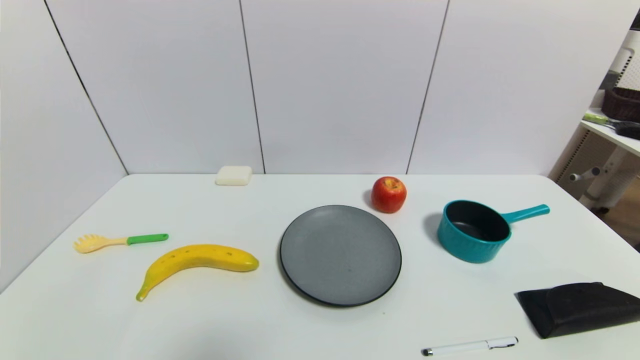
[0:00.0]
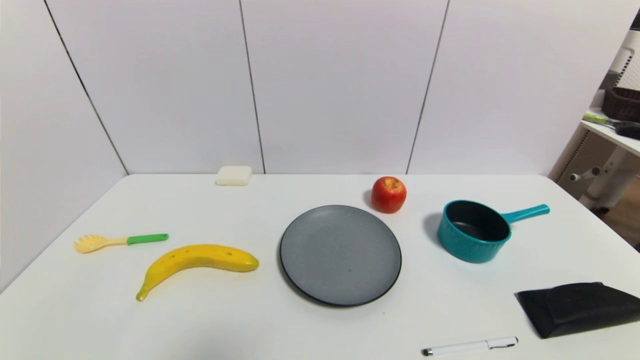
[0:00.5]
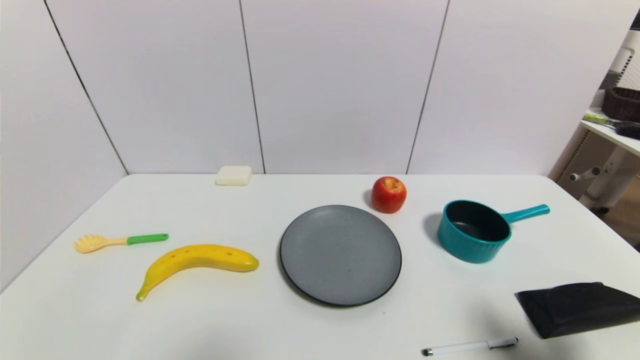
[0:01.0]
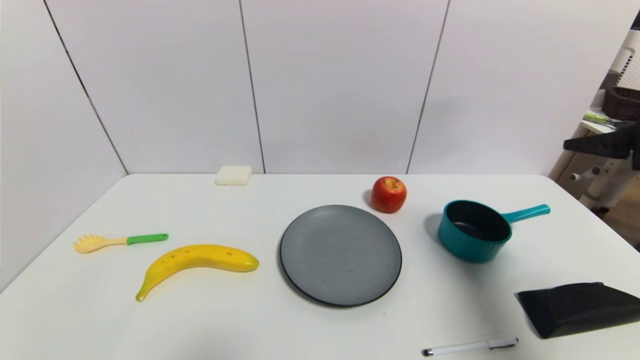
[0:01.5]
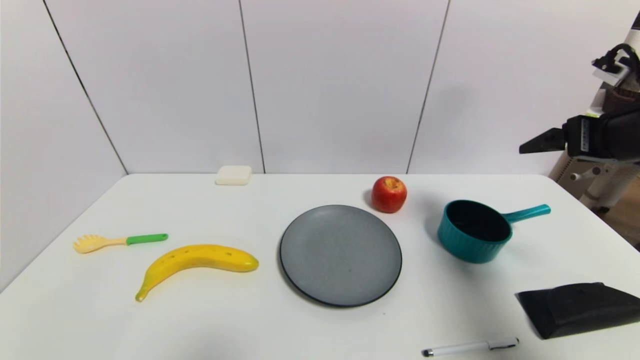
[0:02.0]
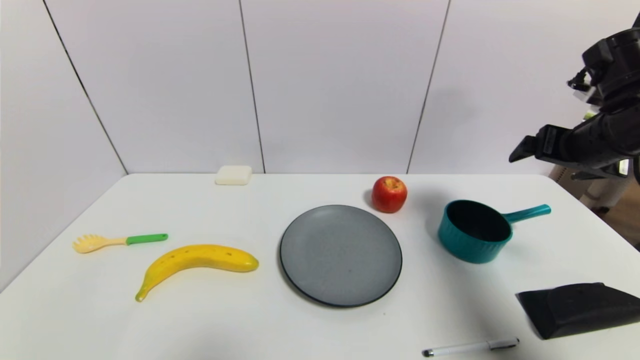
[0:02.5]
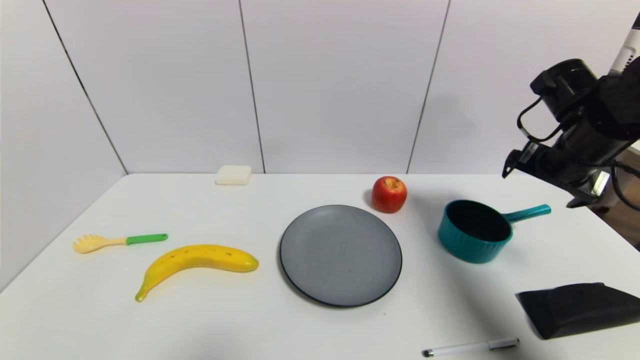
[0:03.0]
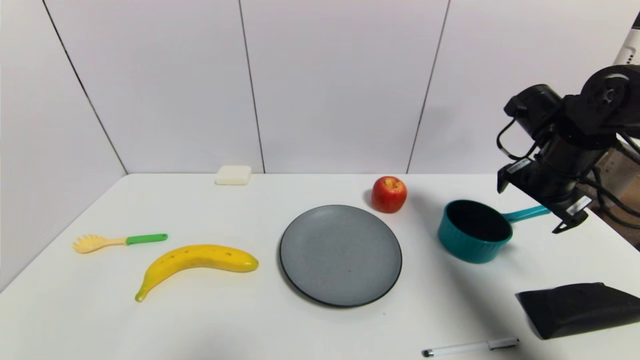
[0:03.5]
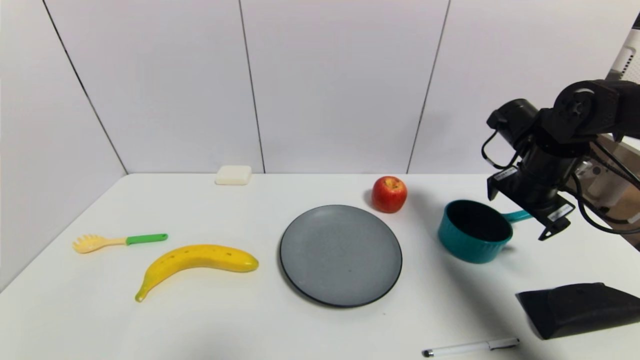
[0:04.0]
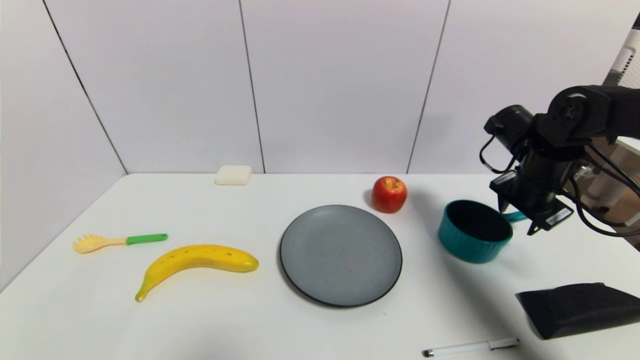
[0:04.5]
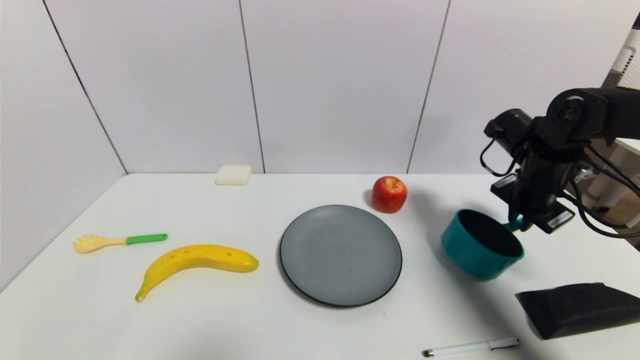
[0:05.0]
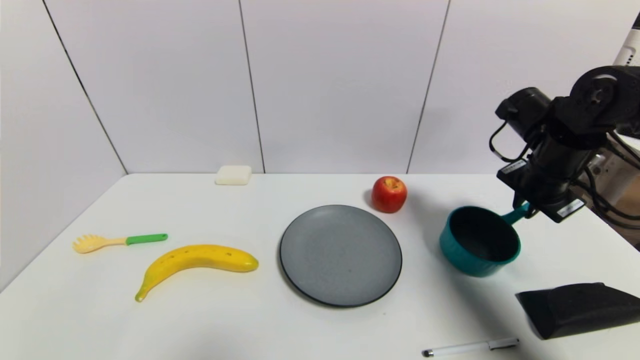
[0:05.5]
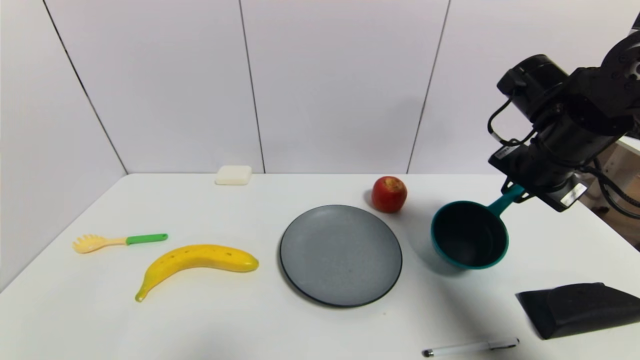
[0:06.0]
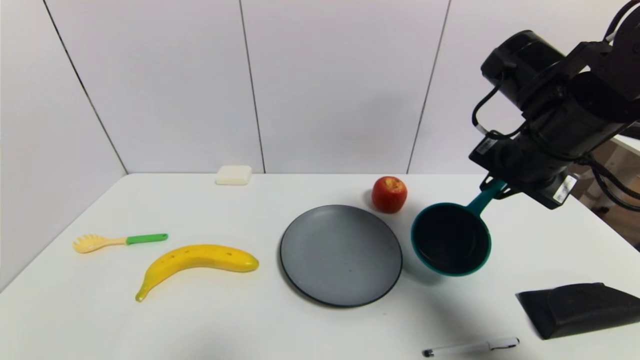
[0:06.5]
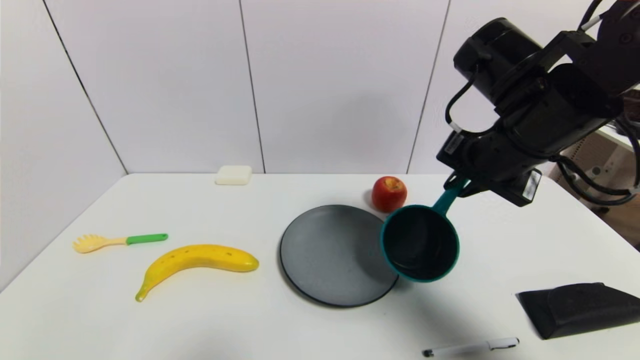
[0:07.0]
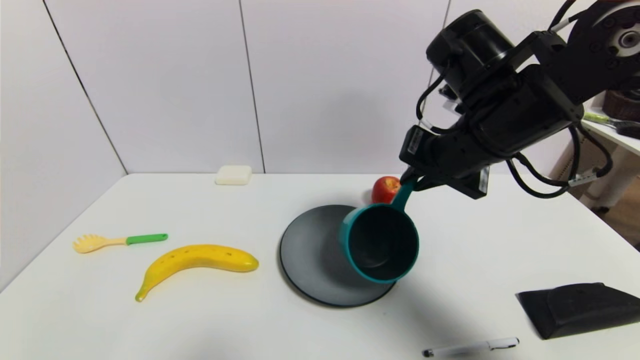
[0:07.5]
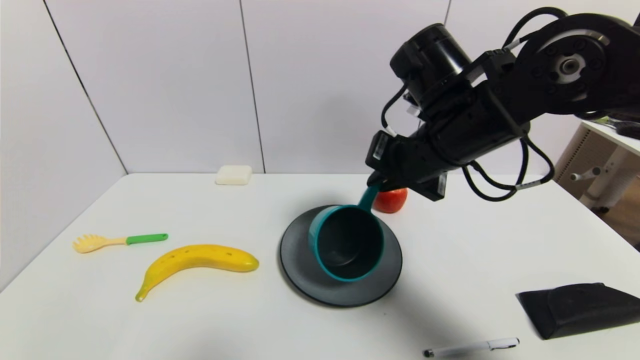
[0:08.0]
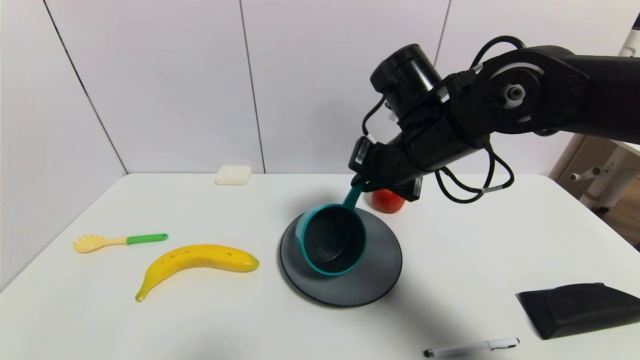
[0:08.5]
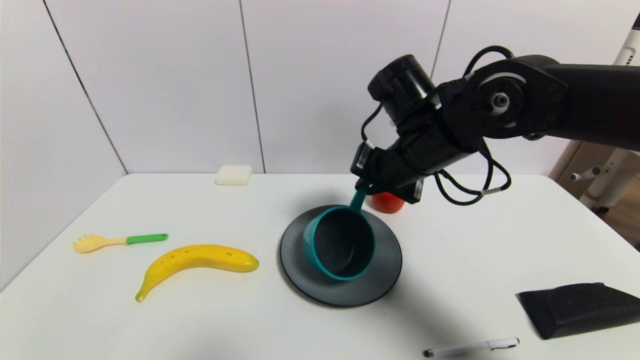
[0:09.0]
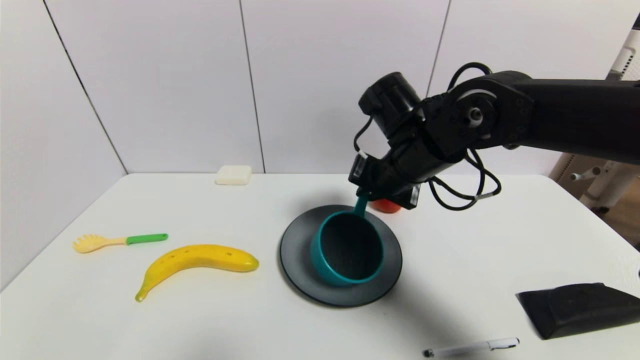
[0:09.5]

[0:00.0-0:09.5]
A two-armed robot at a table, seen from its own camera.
Task of the whole recording: use a gripper to pick the target object and place on the gray plate.
Step, 0:00.0 to 0:05.0: Grasp the blue pot with the right gripper.
0:00.0 to 0:02.0: The right gripper is displaced forward and upward by about 35 cm.
0:02.0 to 0:04.0: The right gripper shifts approximately 15 cm downward and forward.
0:04.0 to 0:05.5: The right gripper closes up.
0:05.5 to 0:07.5: The right gripper shifts roughly 20 cm to the left, upward and backward.
0:07.5 to 0:09.5: The right gripper goes roughly 10 cm downward and to the left.

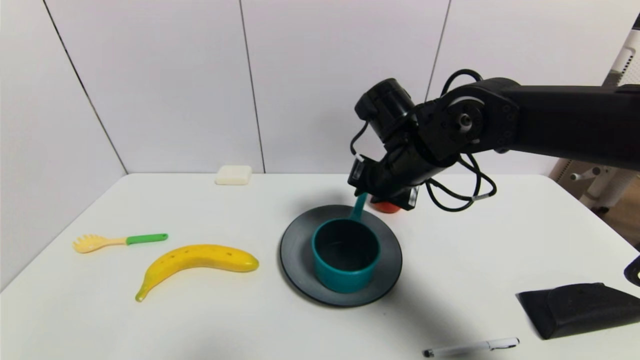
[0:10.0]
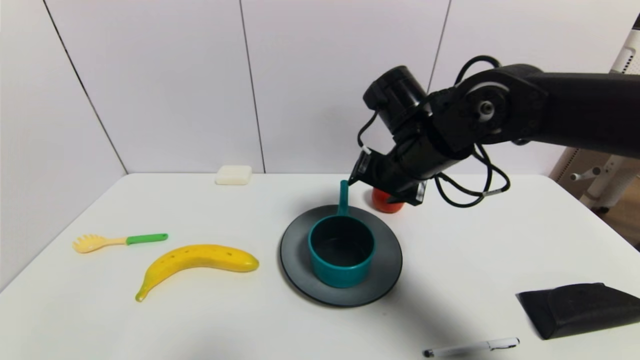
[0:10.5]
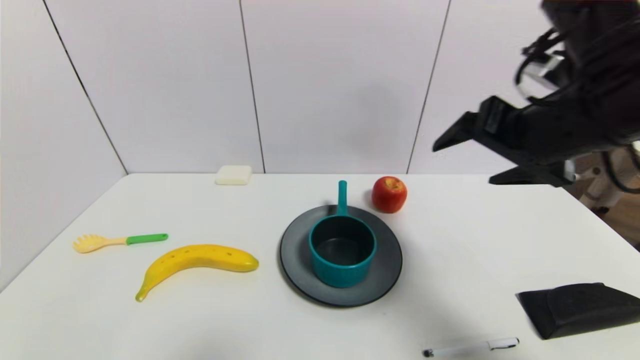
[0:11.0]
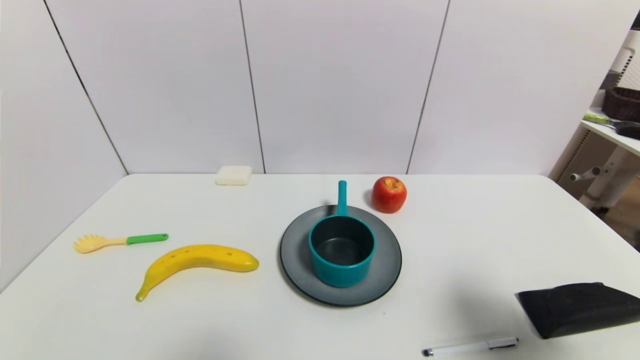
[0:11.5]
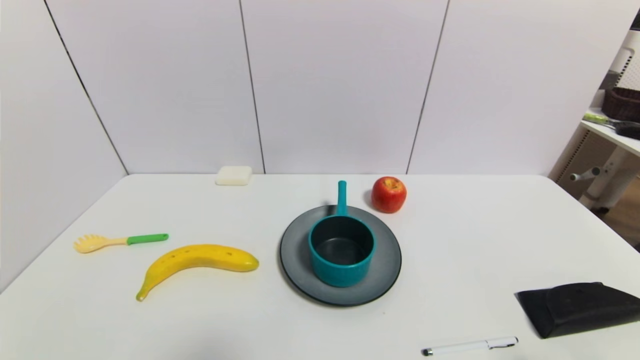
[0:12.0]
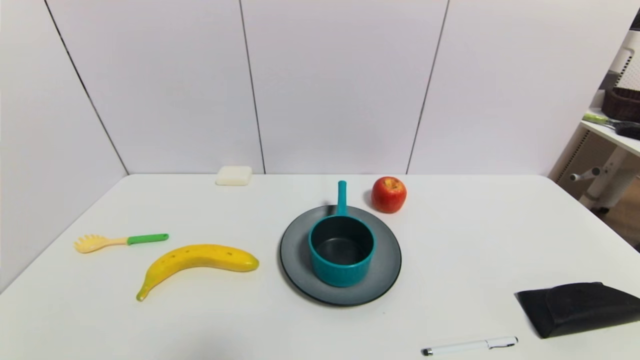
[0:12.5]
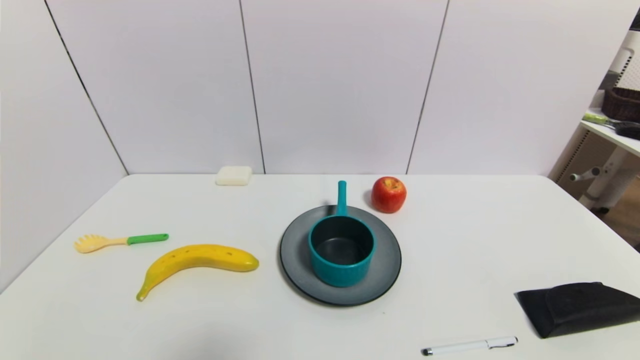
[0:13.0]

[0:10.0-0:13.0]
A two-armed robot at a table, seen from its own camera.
Task of the whole recording: use a gripper to pick the target object and place on the gray plate.
0:10.0 to 0:11.5: The right gripper travels backward and to the right by some 35 cm, and opens.
0:11.5 to 0:13.0: The right gripper heads downward and backward, covering about 20 cm.

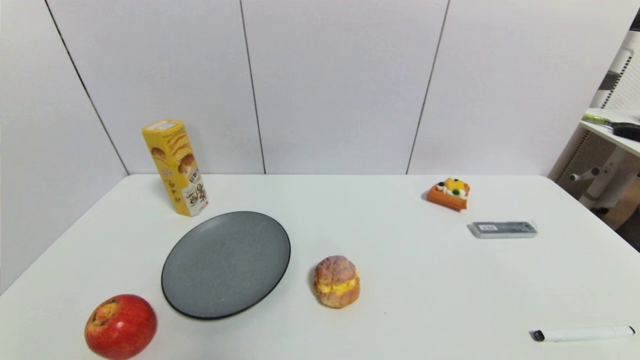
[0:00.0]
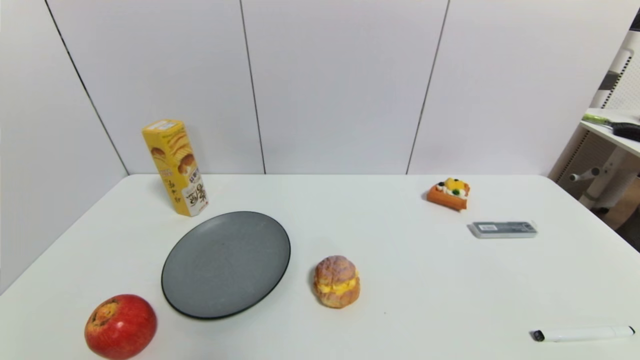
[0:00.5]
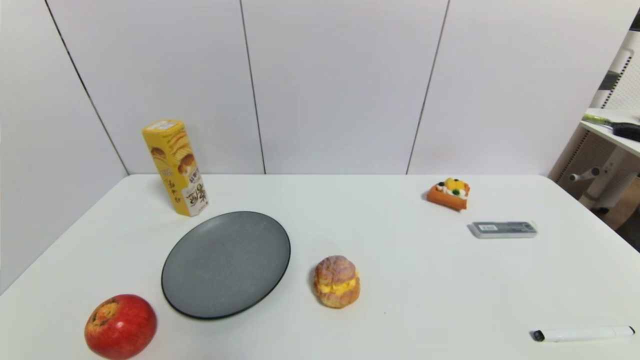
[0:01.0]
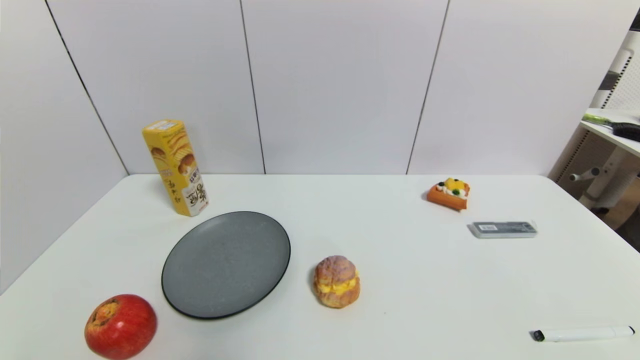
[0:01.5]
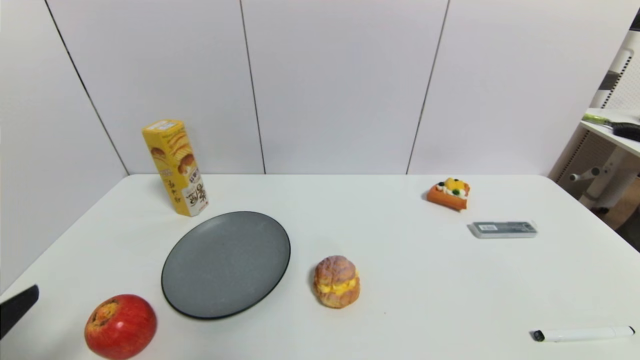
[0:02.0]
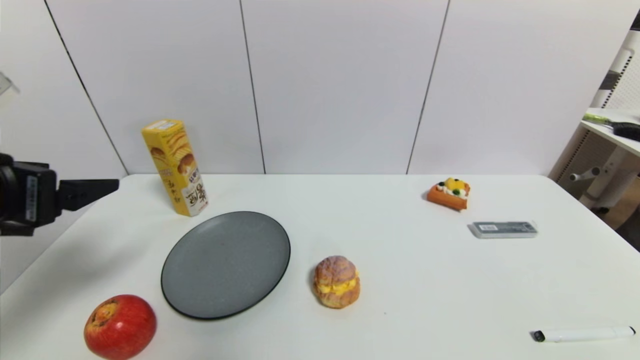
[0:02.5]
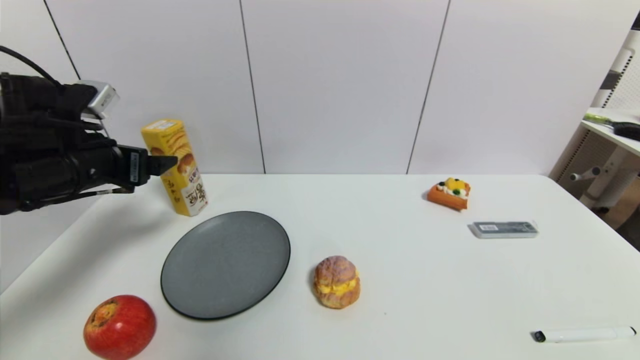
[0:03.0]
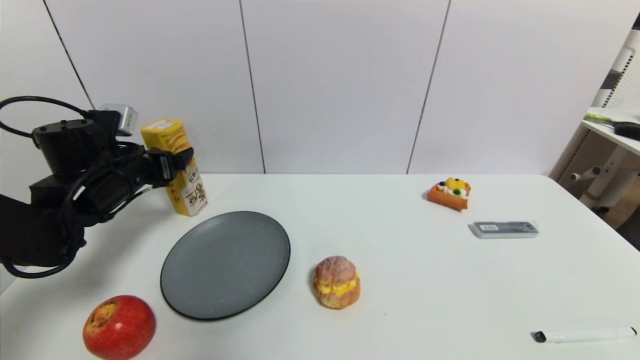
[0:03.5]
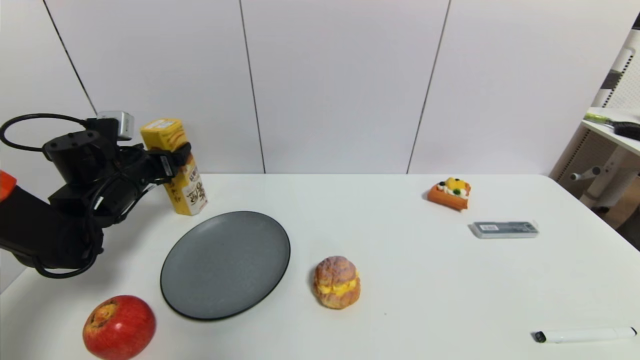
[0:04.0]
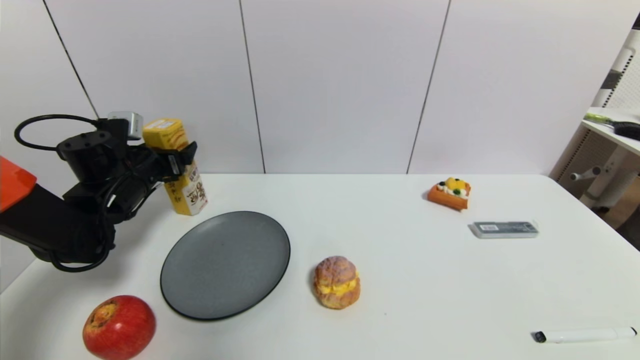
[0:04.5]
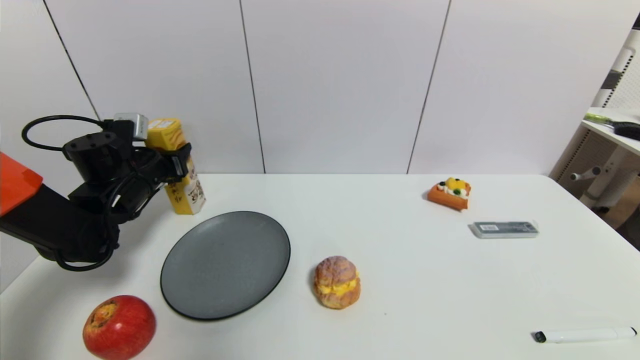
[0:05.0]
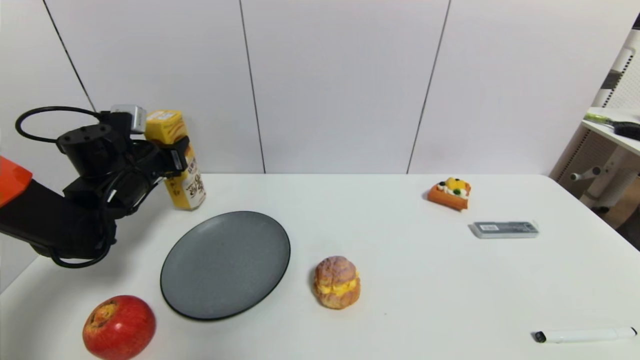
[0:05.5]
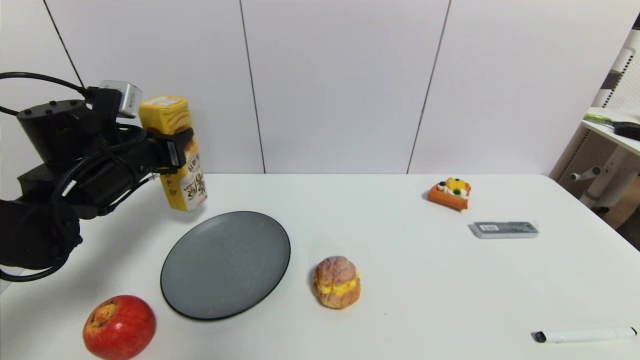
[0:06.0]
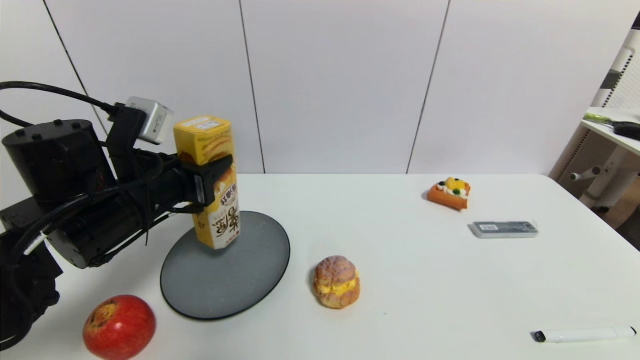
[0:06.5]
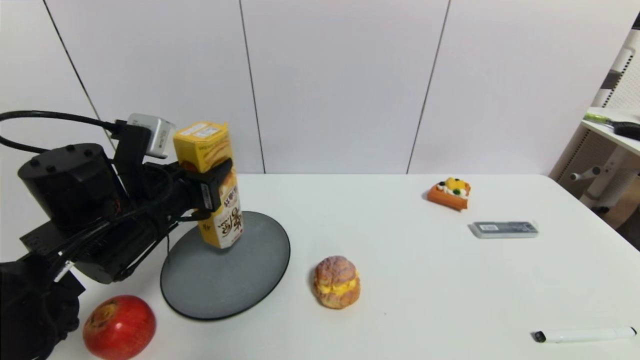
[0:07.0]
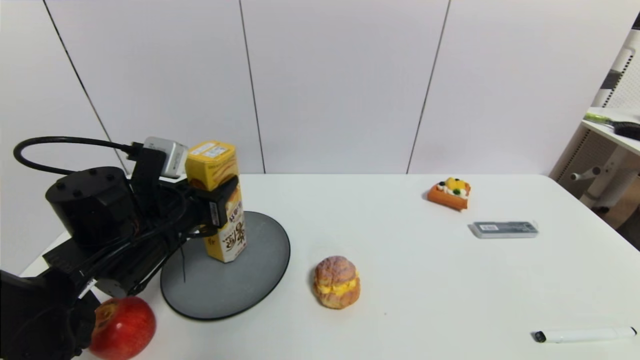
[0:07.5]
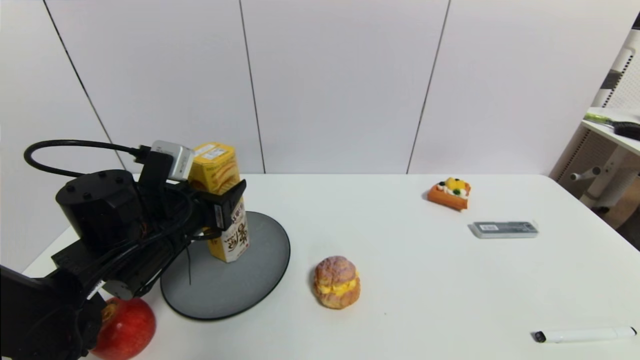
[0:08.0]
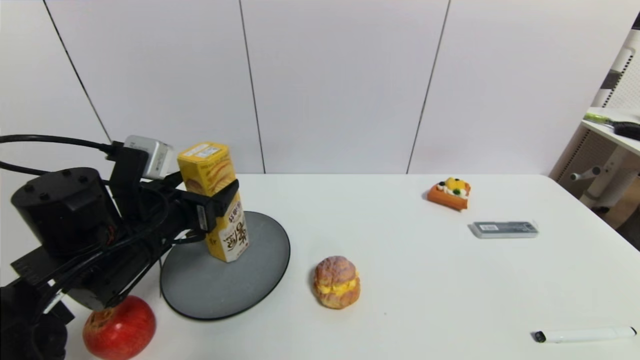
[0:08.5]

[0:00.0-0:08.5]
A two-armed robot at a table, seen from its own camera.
Task of the whole recording: use a gripper to pick the target object and place on the gray plate.
Step, 0:00.0 to 0:05.0: Grasp the potato chips with the left gripper.
0:00.0 to 0:02.0: The left gripper goes some 15 cm upward.
0:02.0 to 0:04.0: The left gripper heads forward, covering approximately 30 cm.
0:04.0 to 0:06.5: The left gripper shifts some 15 cm backward and to the right, and closes up.
0:06.5 to 0:08.5: The left gripper opens up.
